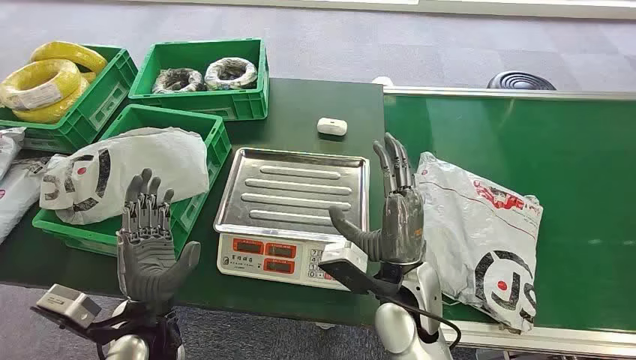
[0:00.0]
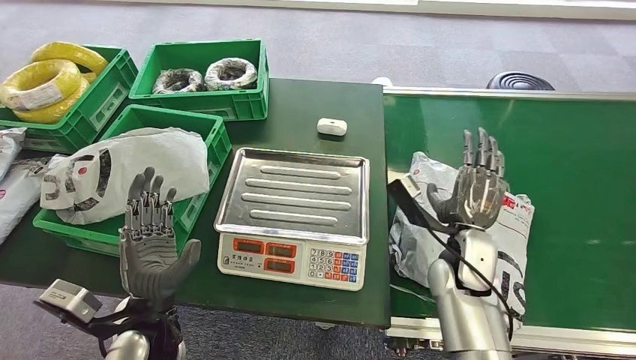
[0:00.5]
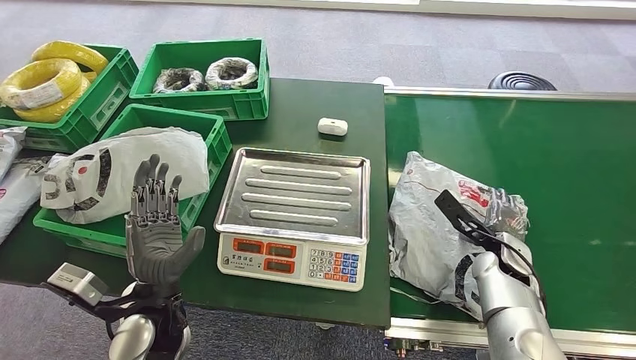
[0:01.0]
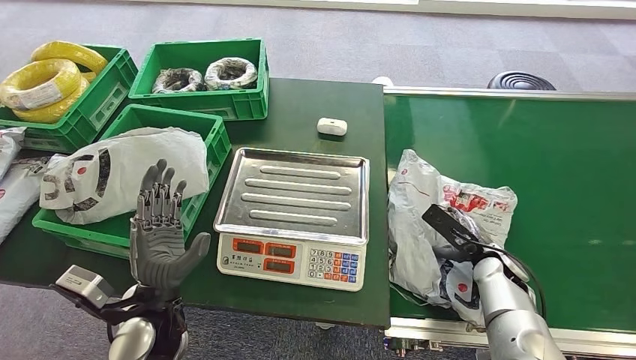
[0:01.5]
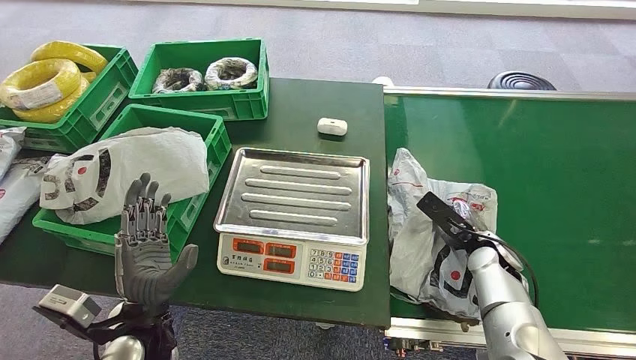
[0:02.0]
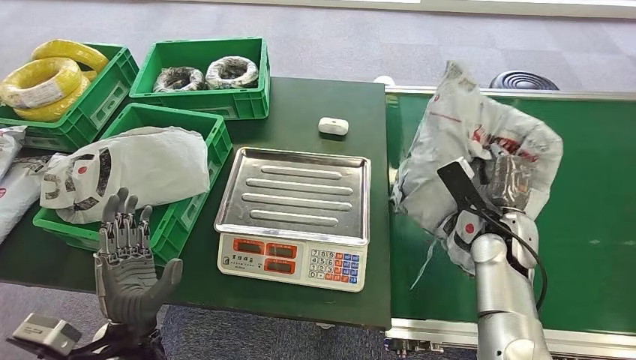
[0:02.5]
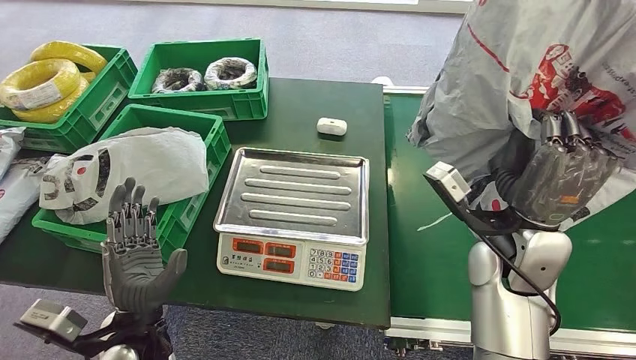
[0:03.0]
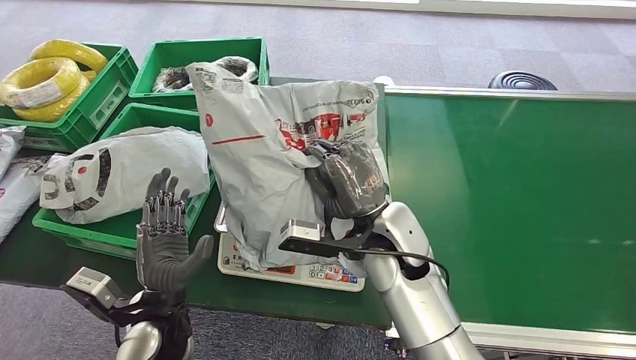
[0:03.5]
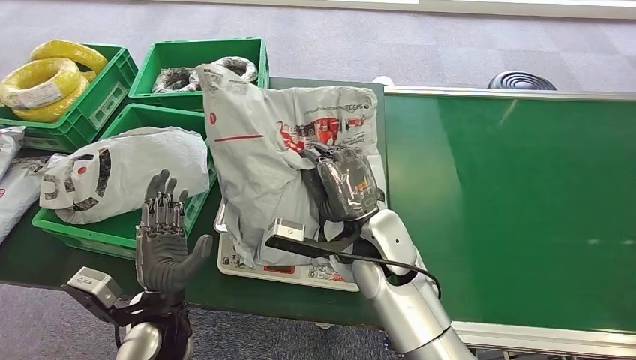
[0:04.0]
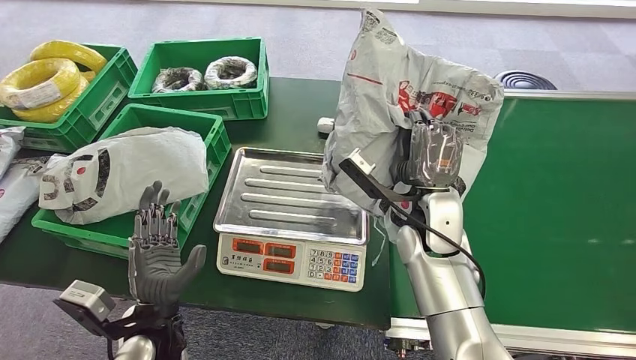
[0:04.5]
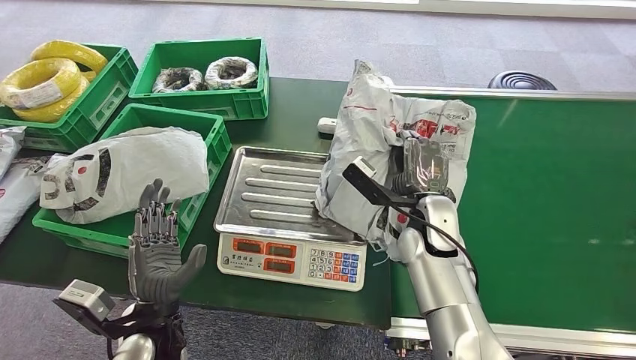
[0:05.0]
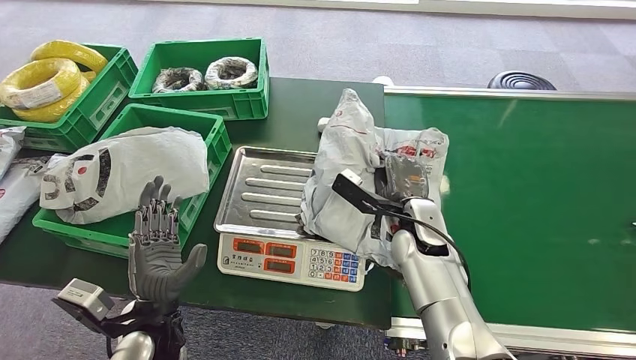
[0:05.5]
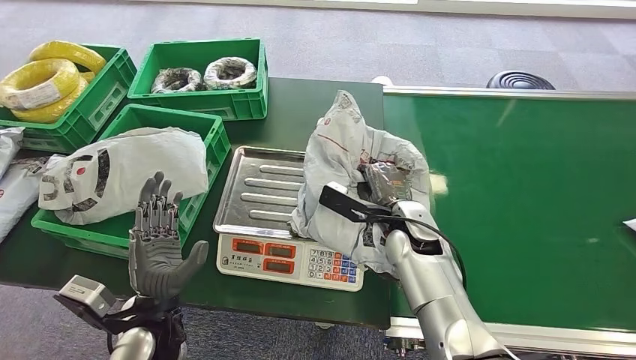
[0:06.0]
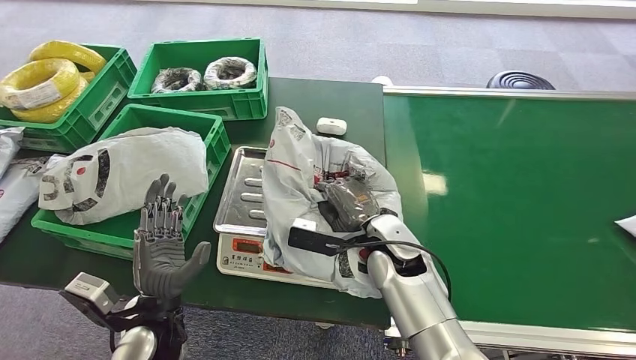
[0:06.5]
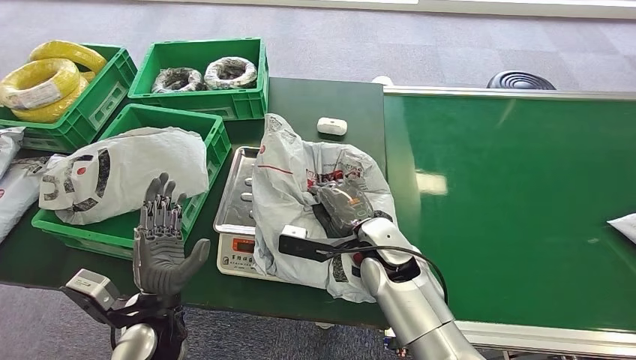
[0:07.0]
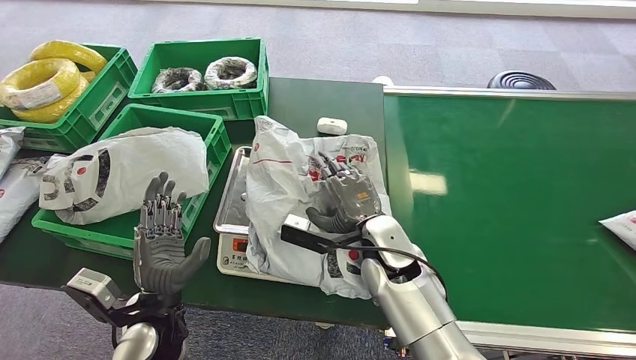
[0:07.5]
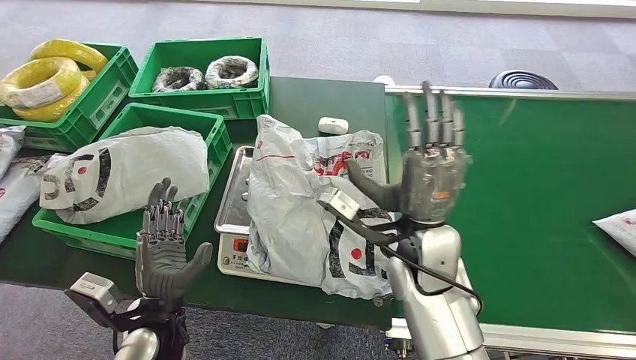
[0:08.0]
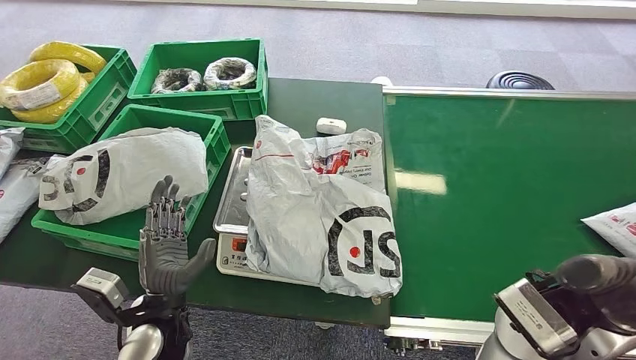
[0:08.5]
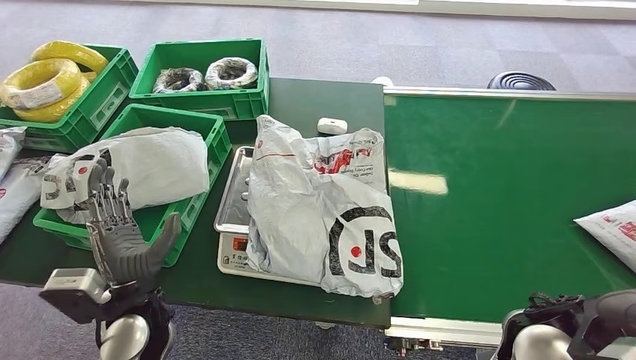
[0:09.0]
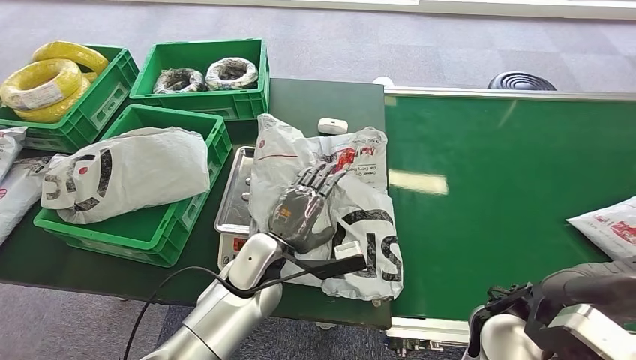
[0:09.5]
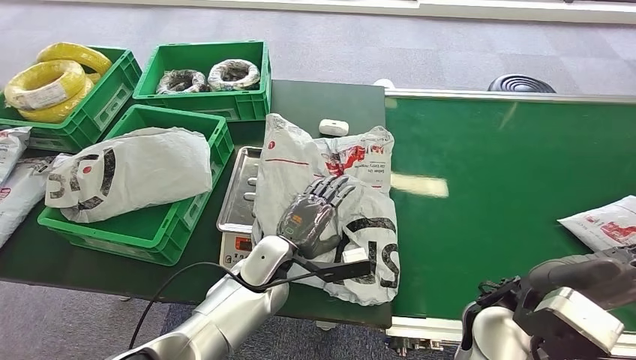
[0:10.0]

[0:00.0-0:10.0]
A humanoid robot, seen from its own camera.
Step, 0:00.0 to 0:03.0: Pick up the package from the conveyor belt.
Step, 0:03.5 to 0:08.0: Place the package onto the inbound machine.

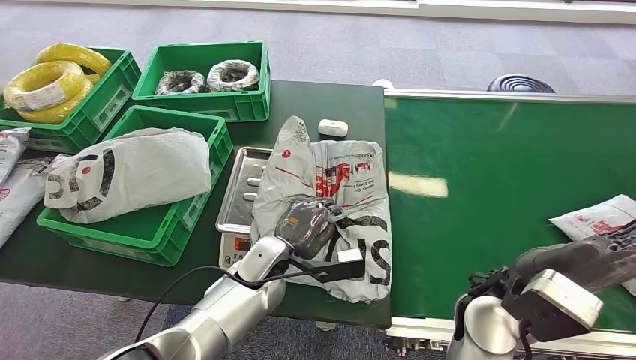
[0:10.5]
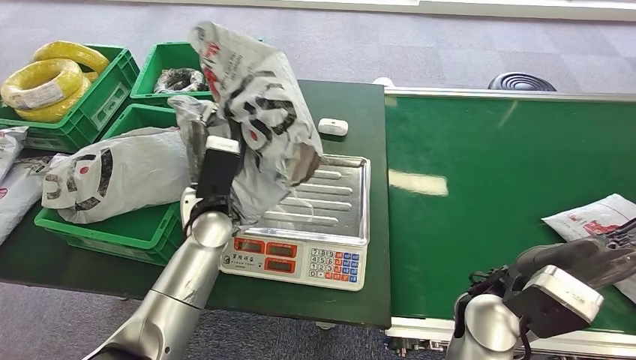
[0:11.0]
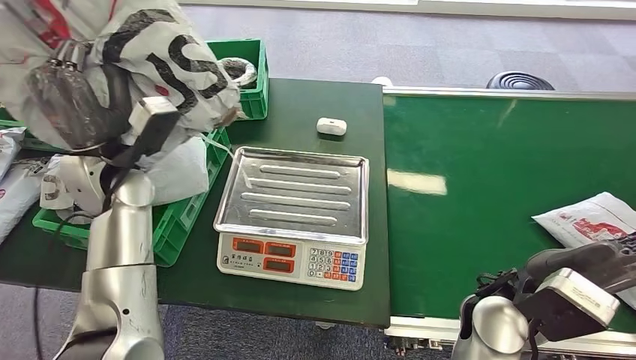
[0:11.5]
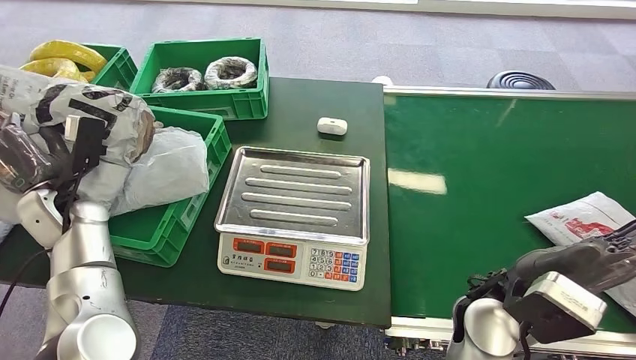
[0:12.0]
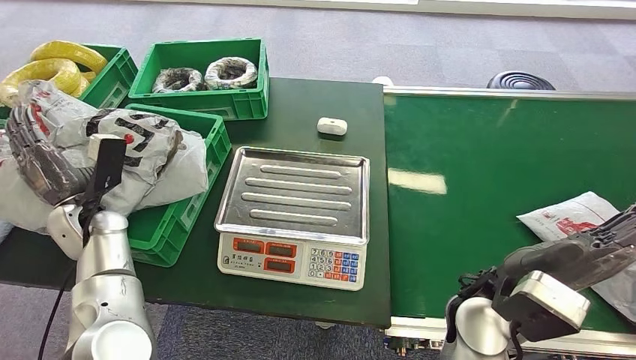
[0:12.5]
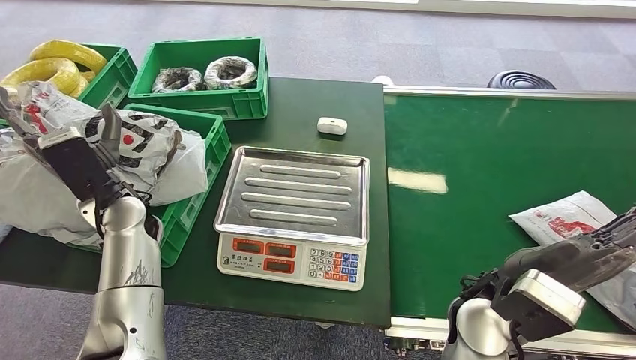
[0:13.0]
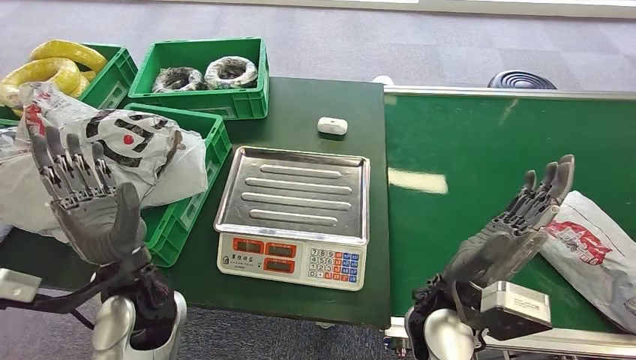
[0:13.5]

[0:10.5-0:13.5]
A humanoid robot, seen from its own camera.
Step, 0:12.0 to 0:13.5: Place the package into the parcel locker.

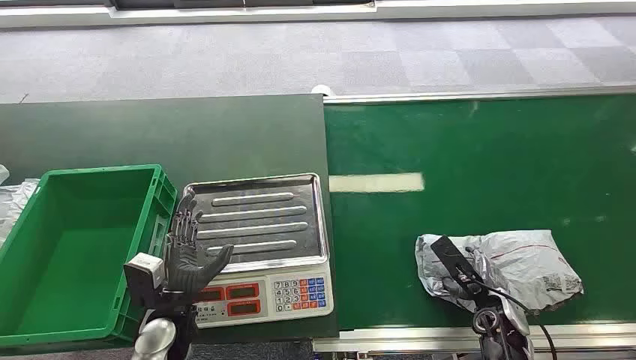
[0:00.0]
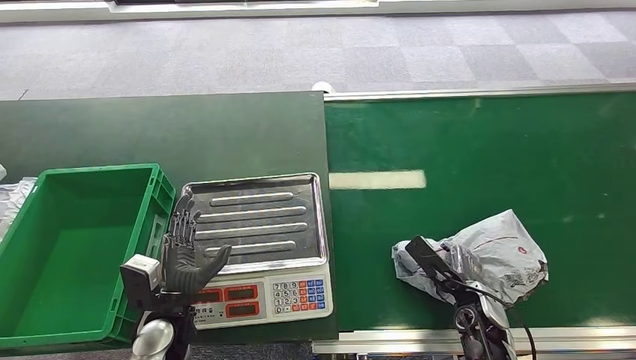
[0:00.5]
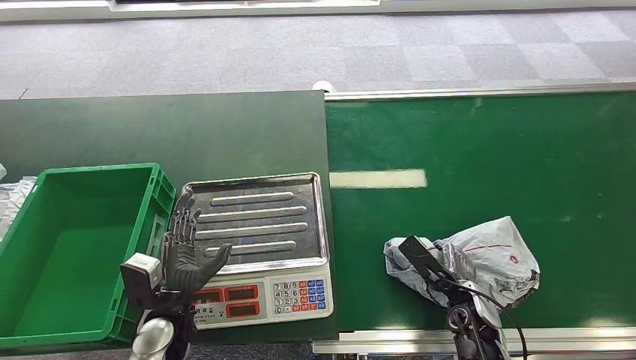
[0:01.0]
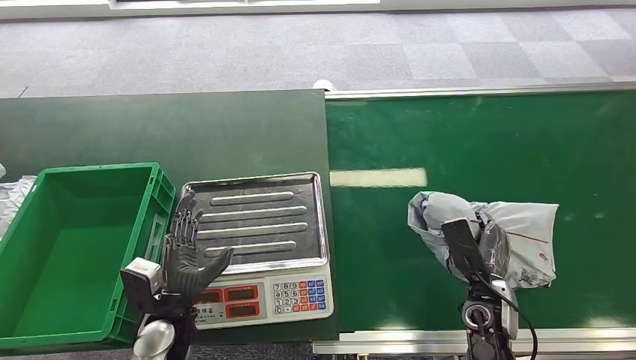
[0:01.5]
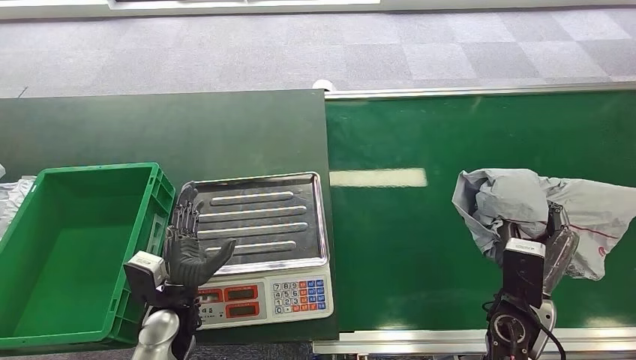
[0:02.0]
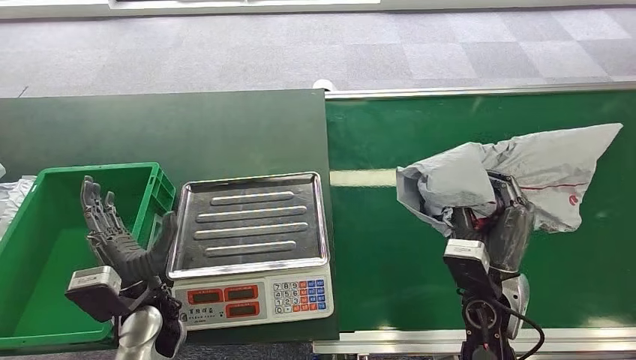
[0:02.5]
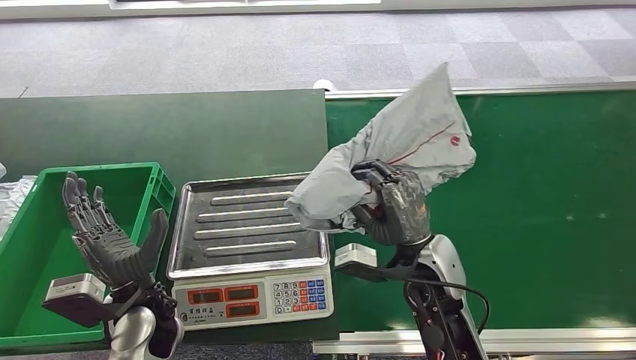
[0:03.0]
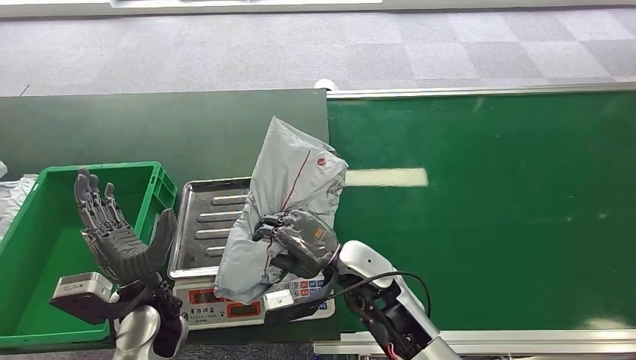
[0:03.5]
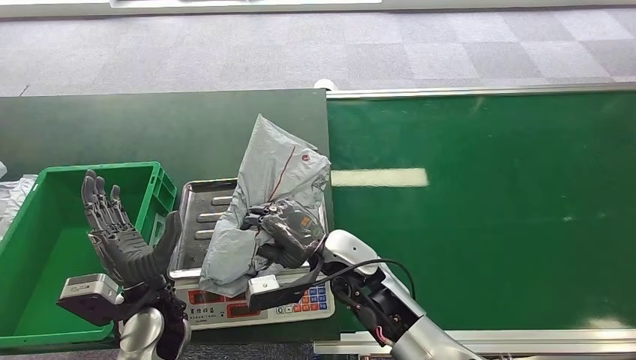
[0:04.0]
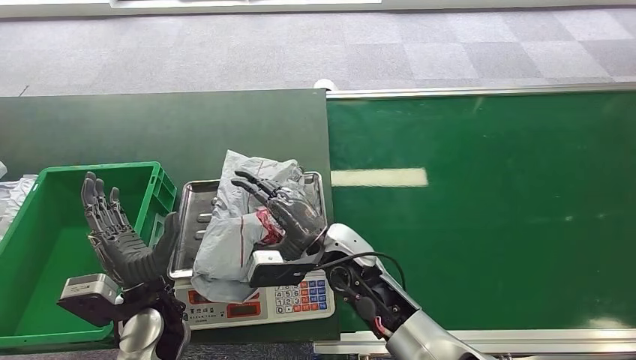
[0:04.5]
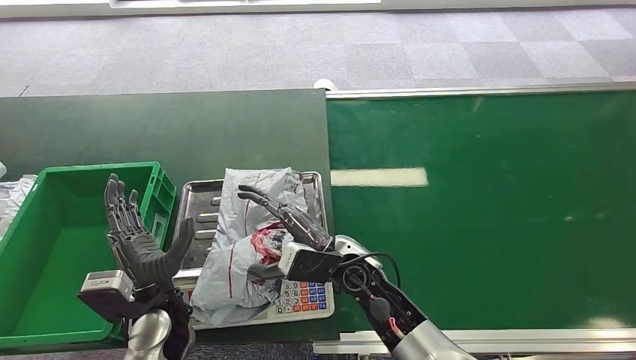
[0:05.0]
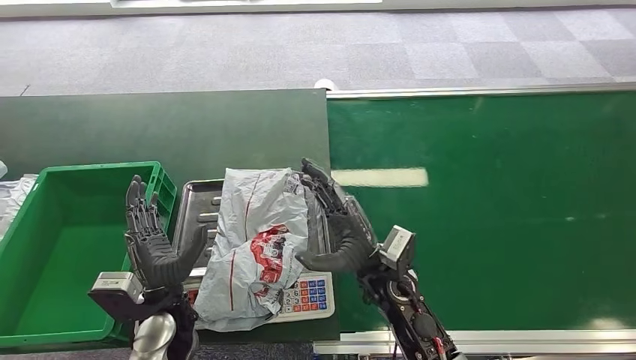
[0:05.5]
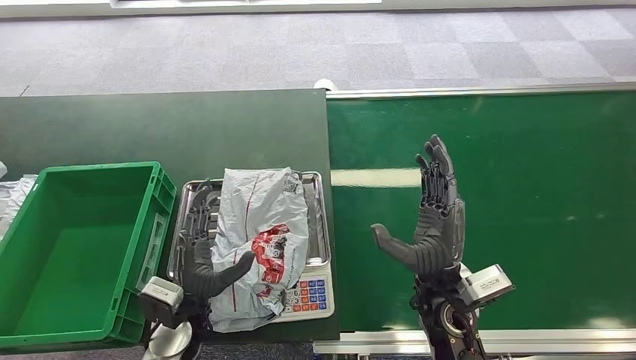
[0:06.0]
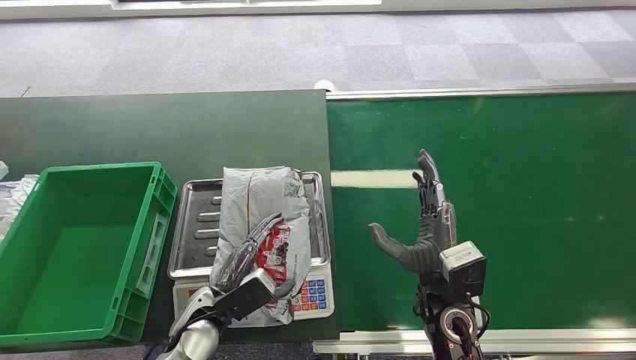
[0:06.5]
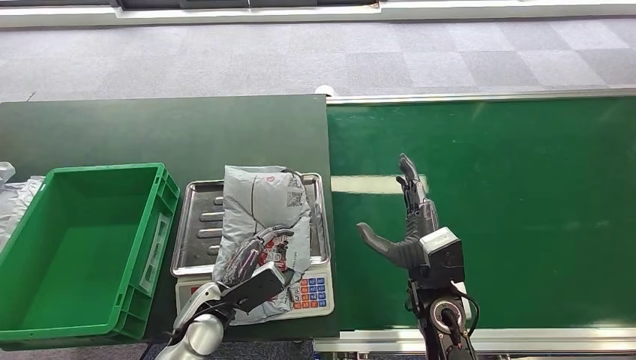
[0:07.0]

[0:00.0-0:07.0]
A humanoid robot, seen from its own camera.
Step, 0:00.0 to 0:01.5: Pick up the package from the conveyor belt.
Step, 0:03.5 to 0:04.5: Place the package onto the inbound machine.
